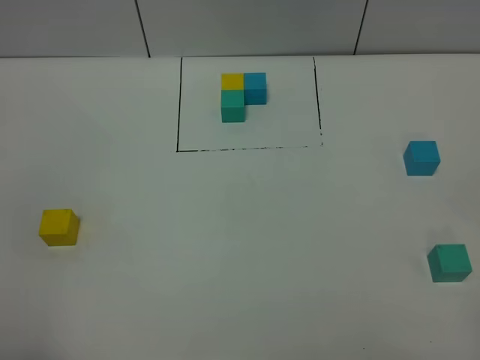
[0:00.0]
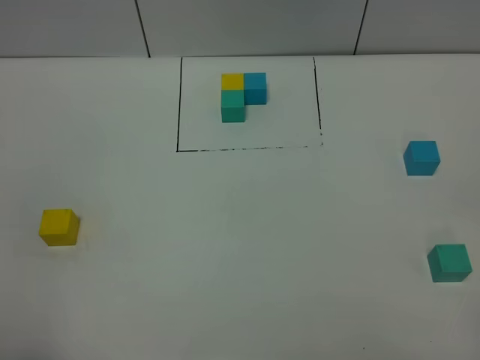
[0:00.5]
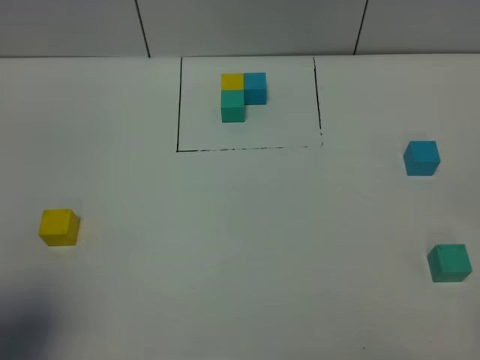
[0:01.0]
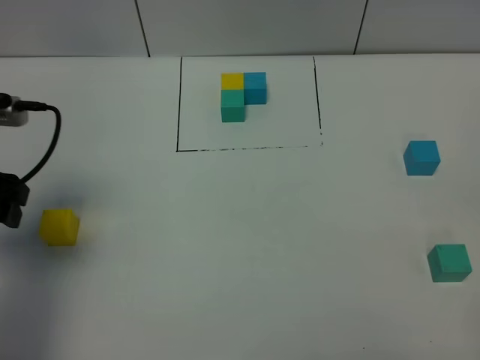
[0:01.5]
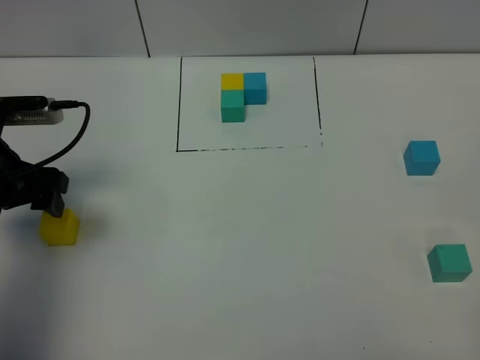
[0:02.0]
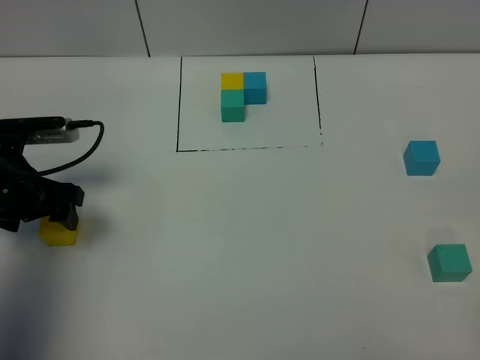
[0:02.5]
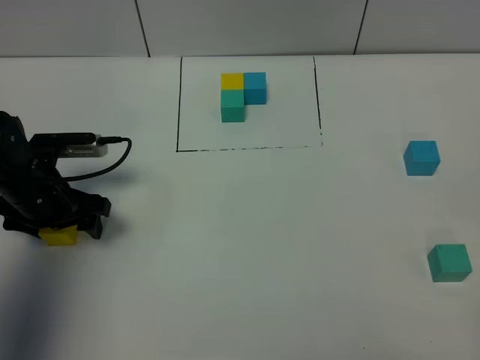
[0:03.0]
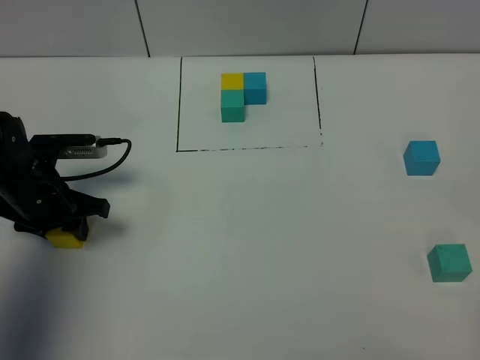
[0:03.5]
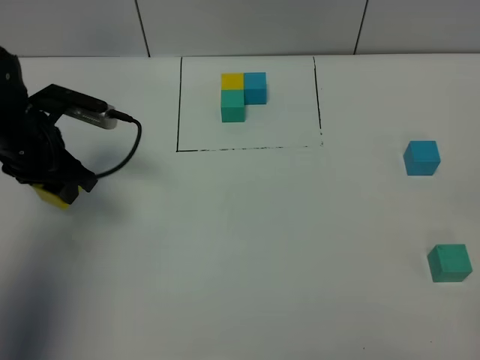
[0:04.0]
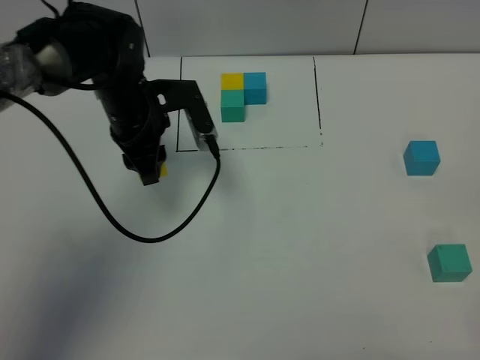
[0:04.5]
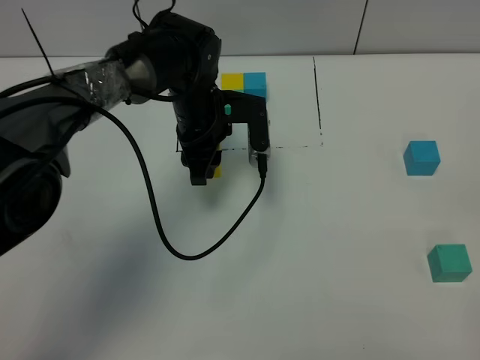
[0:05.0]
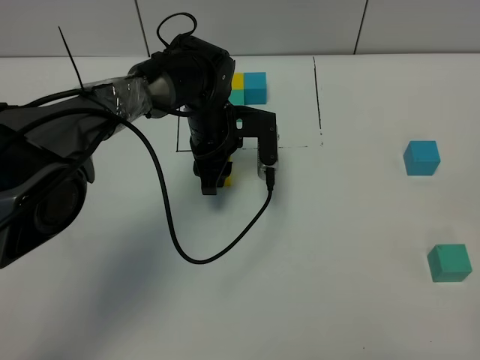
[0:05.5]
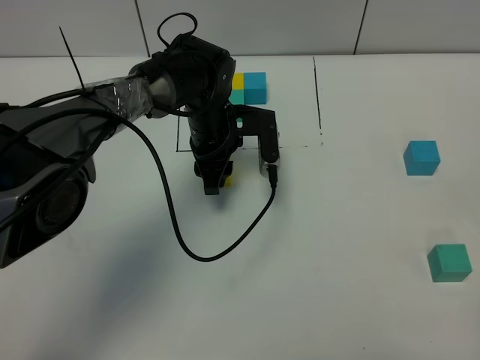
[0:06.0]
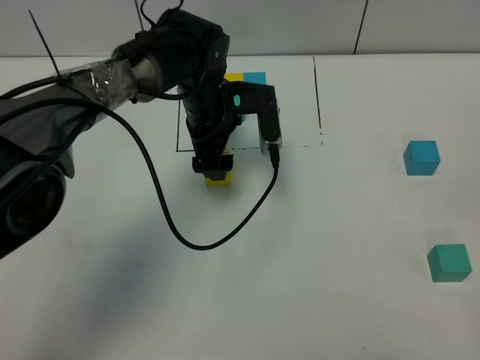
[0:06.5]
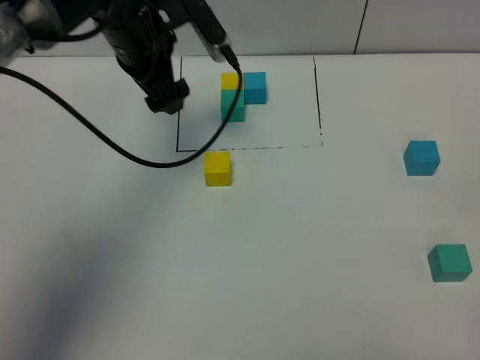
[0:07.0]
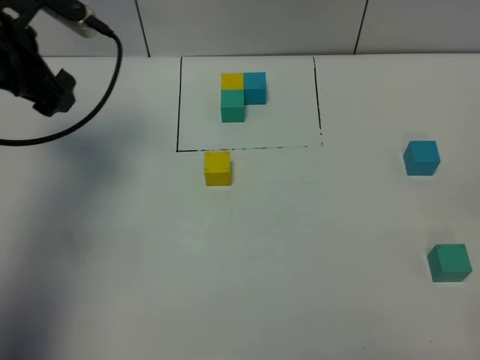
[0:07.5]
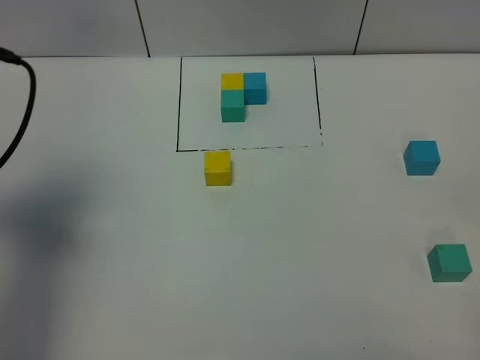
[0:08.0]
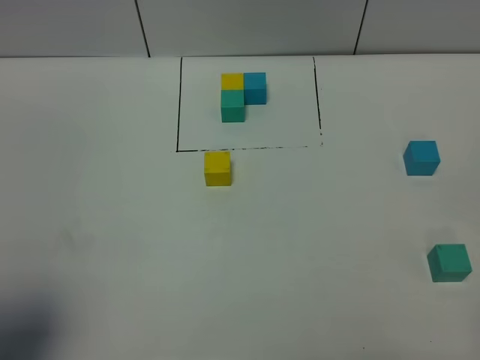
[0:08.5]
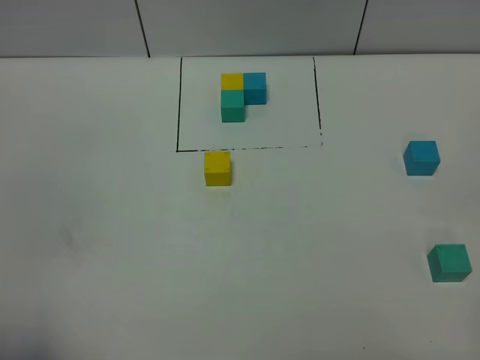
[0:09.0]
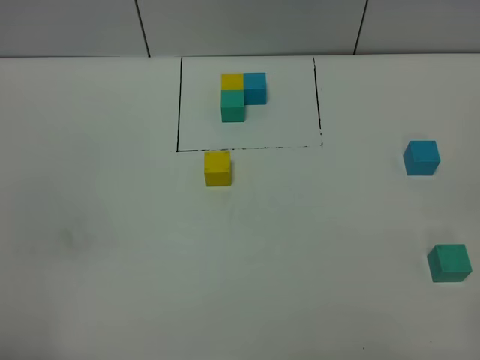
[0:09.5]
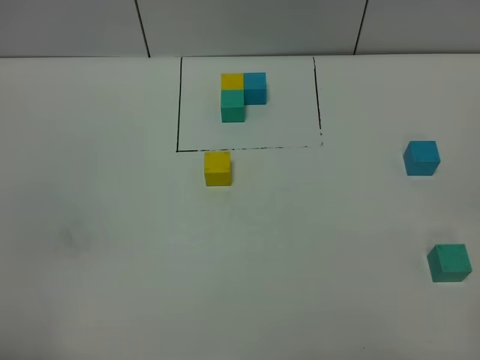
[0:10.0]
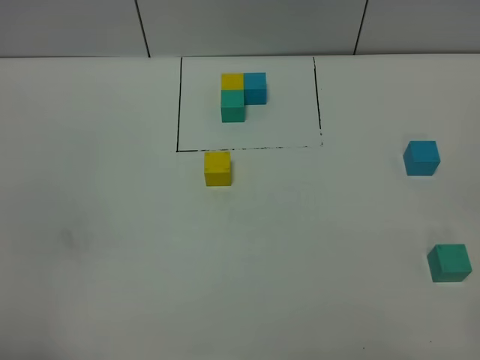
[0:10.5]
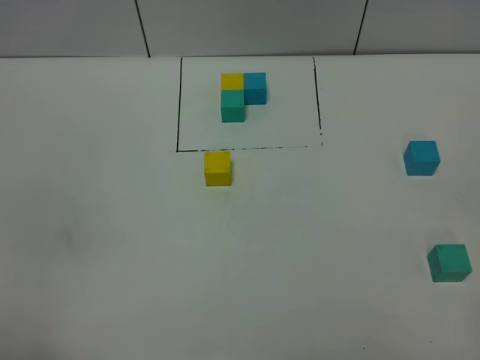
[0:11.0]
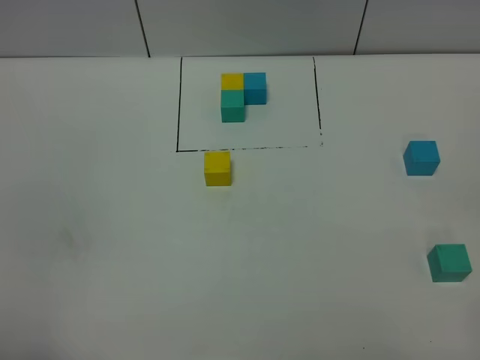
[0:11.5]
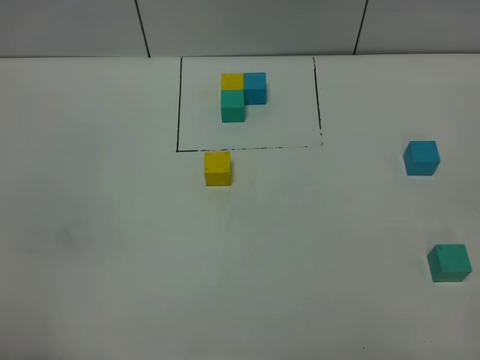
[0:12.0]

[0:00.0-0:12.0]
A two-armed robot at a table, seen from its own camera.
Task of the whole recording: According to the building block template in front, assemble the scattered blocks together.
Step, 0:00.0 to 0:06.0: Put the yellow build block in the center of the table.
0:00.0 to 0:02.0: The left gripper is displaced forward by roughly 30 cm.
0:02.0 to 0:04.0: The left gripper moves forward, roughly 5 cm, reaches about 10 cm downward, then returns, and closes up.
0:04.0 to 0:06.0: The left gripper moves to the right, approximately 20 cm.
0:06.0 to 0:08.0: The left gripper moves to the left, upward and backward, roughly 40 cm, and opens.
0:08.0 to 0:10.0: The left gripper is displaced backward by some 25 cm.

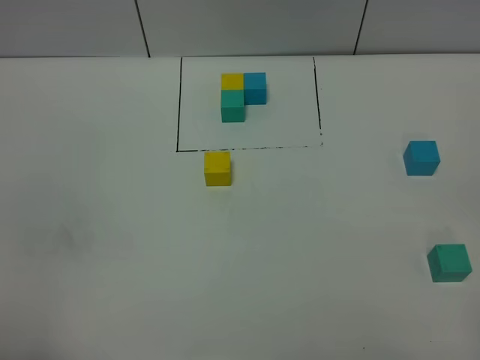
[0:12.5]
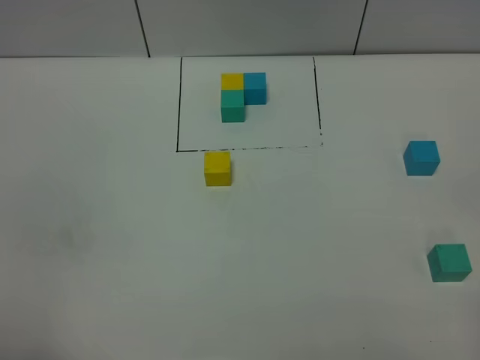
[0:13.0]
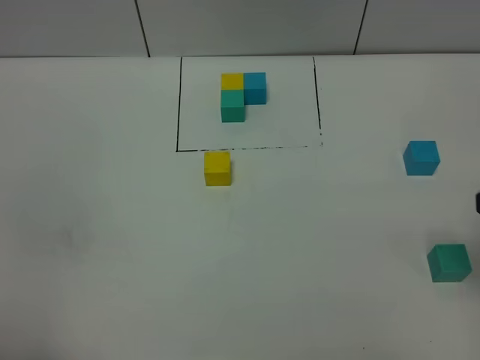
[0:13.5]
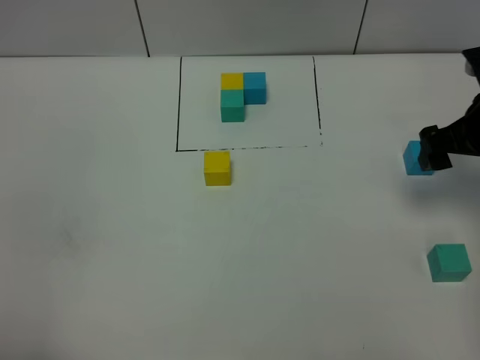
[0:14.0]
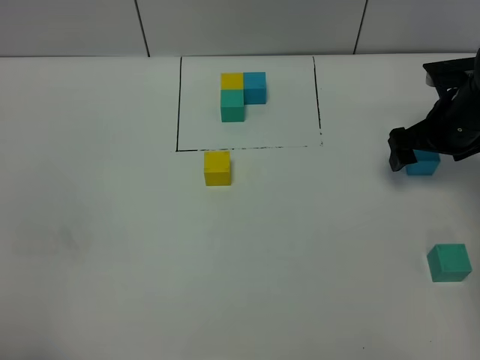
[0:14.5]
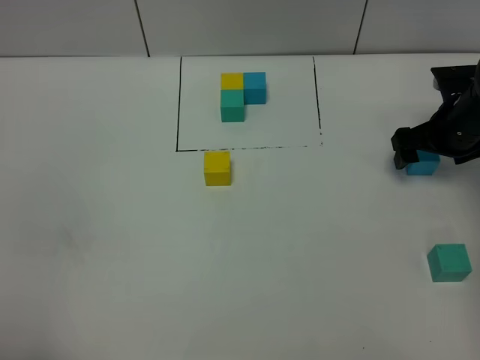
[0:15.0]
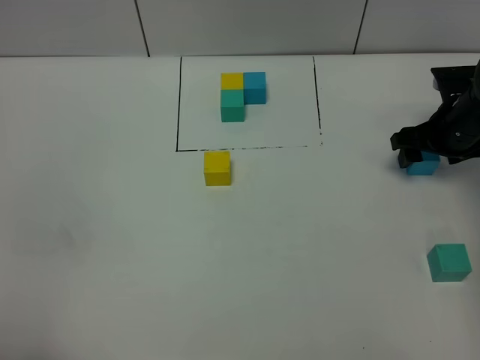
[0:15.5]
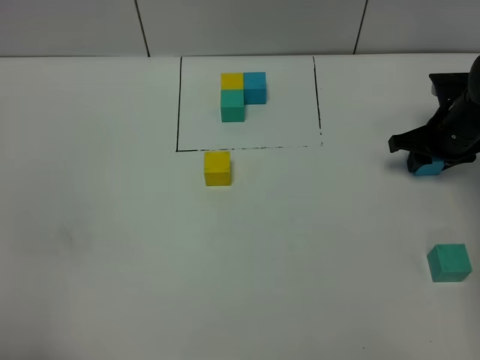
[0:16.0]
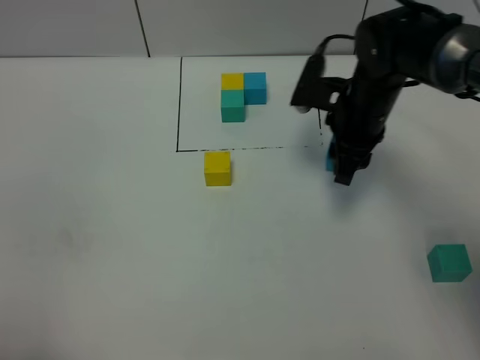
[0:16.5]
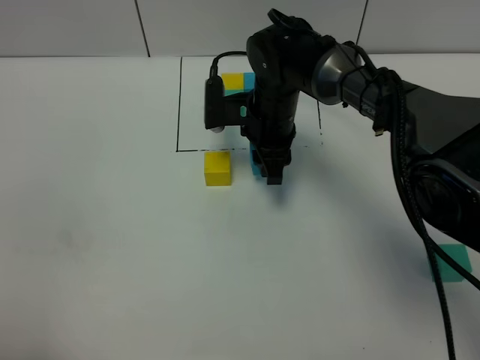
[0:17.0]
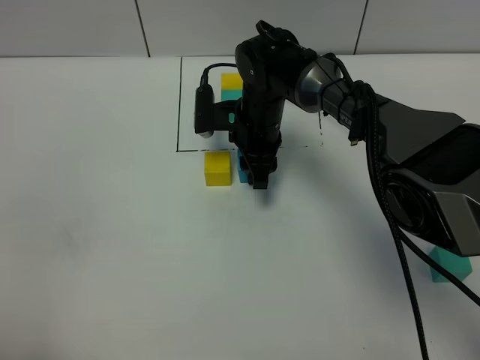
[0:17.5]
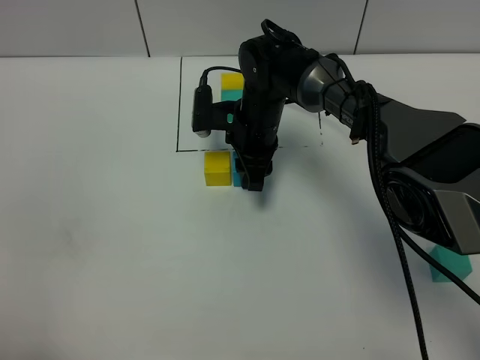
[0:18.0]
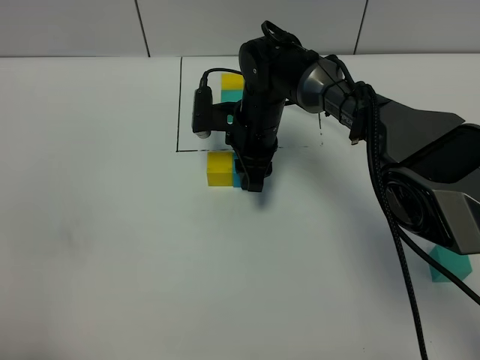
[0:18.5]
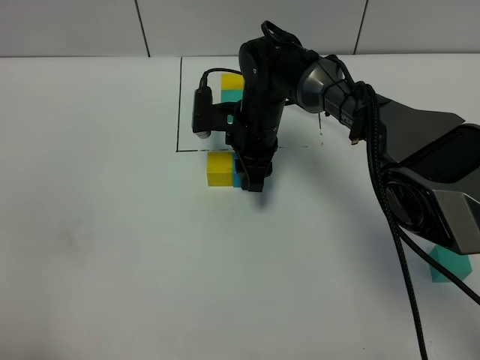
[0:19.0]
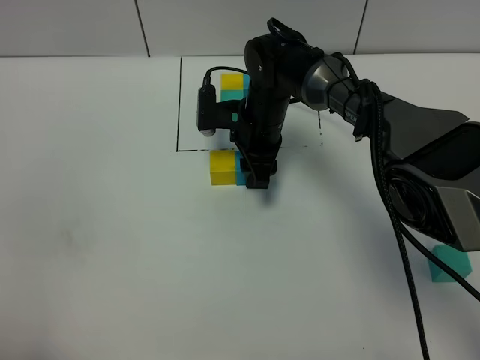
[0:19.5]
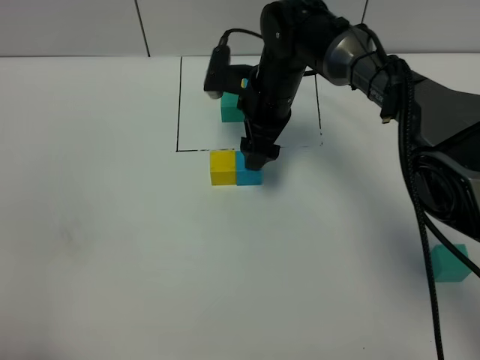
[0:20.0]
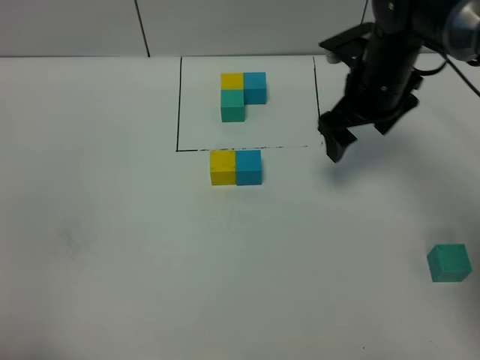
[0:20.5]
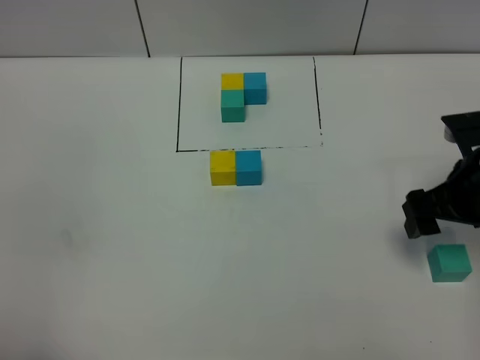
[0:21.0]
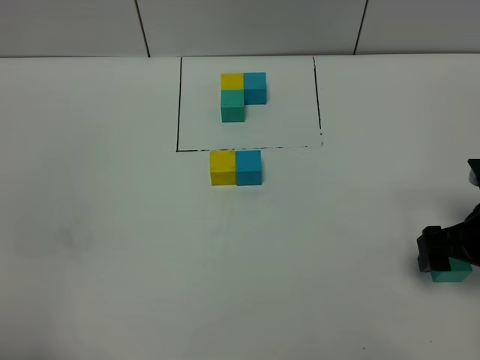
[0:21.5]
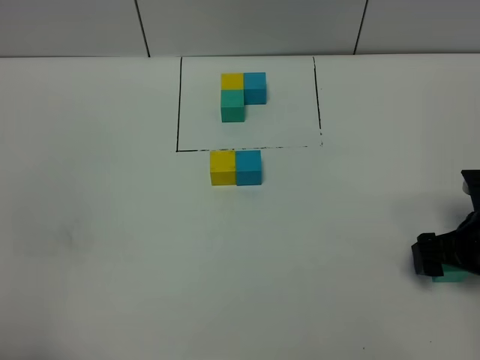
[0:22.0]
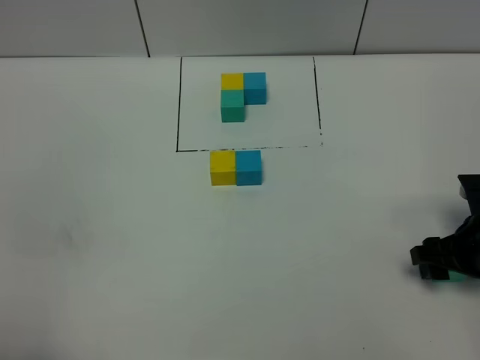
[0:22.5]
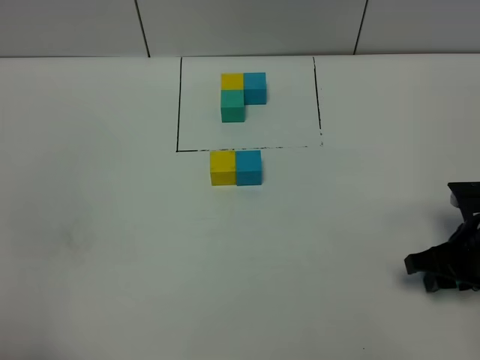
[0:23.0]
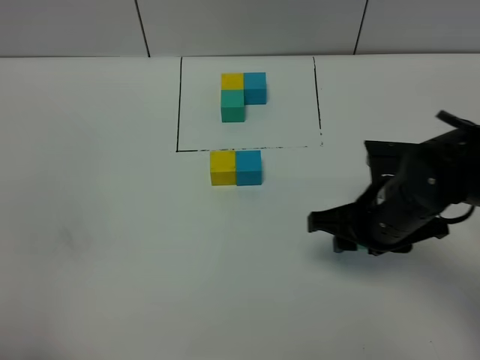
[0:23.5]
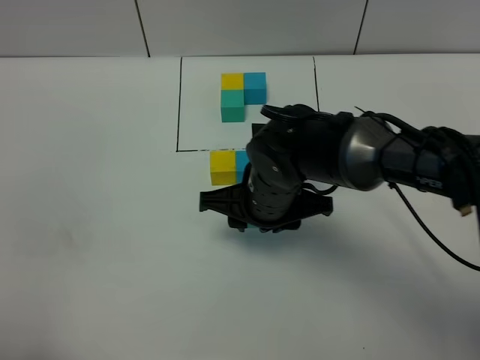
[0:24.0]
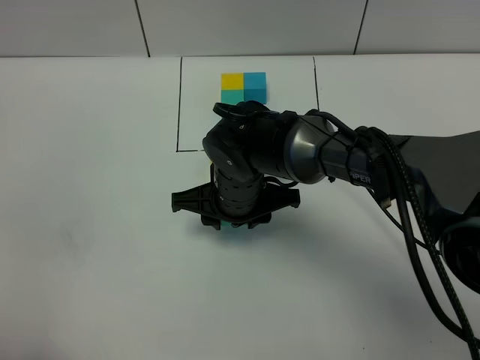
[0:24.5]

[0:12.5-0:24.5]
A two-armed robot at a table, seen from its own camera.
Task of the whole recording: According to the building block template in front, assemble the scattered blocks together.
Step, 0:12.5 to 0:18.5: Put the blue build block on the right of the yellow build block.
0:12.5 to 0:14.5: The right gripper is displaced forward by approximately 40 cm, and opens its fingers.
0:14.5 to 0:16.5: The right gripper shifts some 15 cm to the left, and closes its fingers.
0:16.5 to 0:18.5: The right gripper goes about 15 cm to the left and downward.
0:18.5 to 0:20.5: The right gripper moves to the right and upward, about 20 cm, and opens.
0:20.5 to 0:22.5: The right gripper moves backward, to the right and downward, about 20 cm.
0:22.5 to 0:24.5: The right gripper shifts some 30 cm to the left.

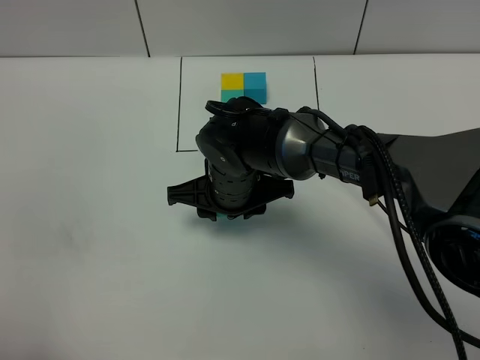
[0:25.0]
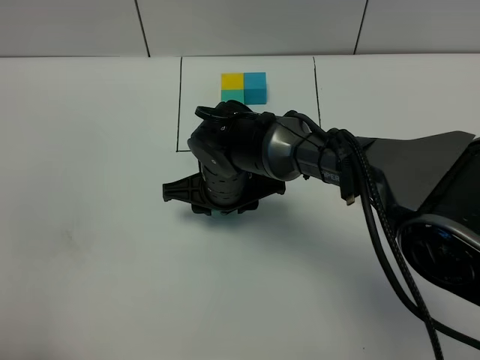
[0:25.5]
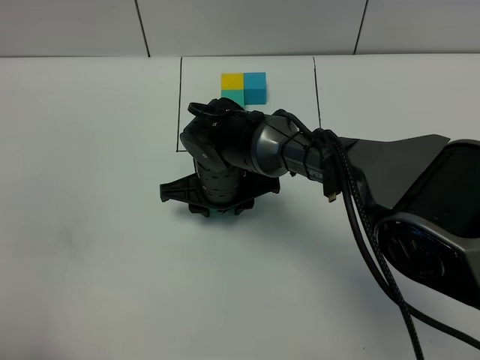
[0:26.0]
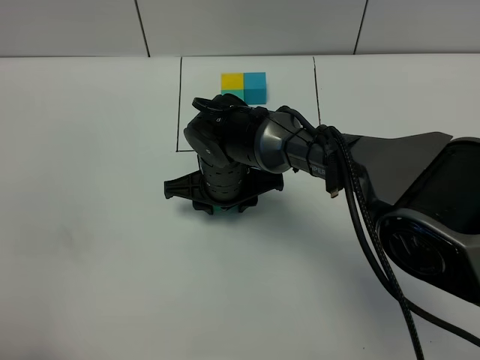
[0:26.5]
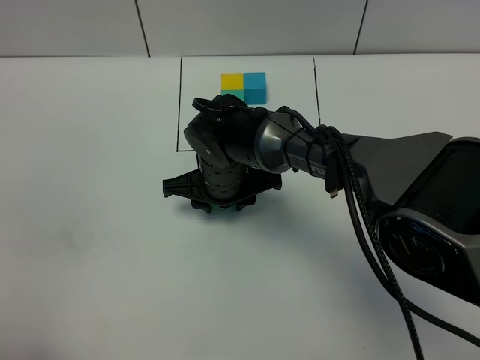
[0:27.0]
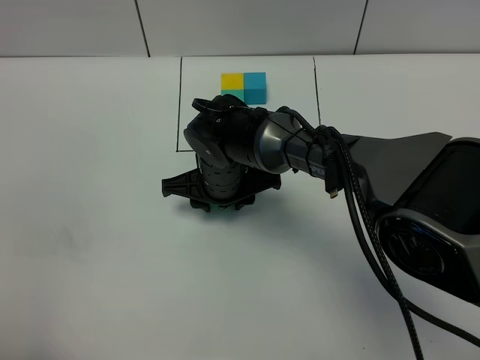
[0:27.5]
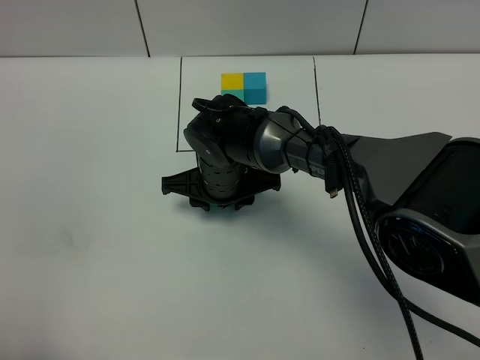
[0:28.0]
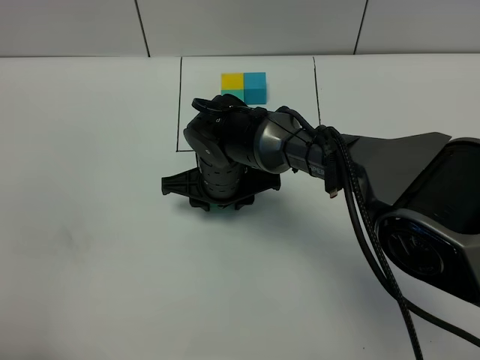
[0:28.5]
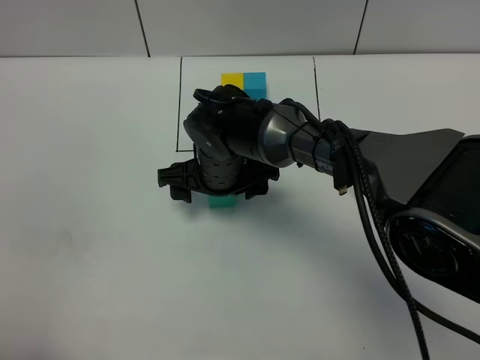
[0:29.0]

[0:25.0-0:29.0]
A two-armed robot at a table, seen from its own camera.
Task of the whole recording: According to the building block template in front, assemble the scattered blocks together.
Step, 0:25.0 to 0:28.5: Put the green build block on the behind of the yellow build block.
0:25.0 to 0:27.0: The grippers stay close to where they were, moving slightly.
0:27.0 to 0:29.0: The right gripper opens its fingers.
